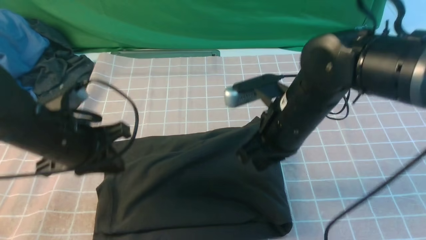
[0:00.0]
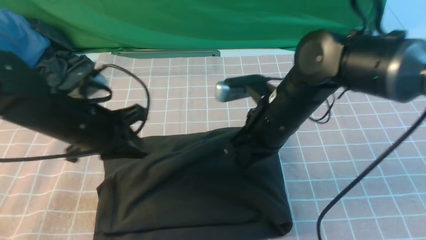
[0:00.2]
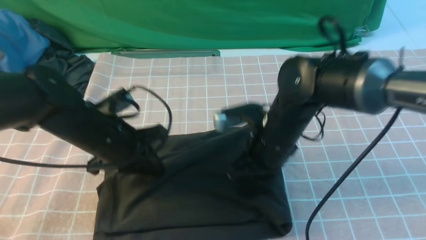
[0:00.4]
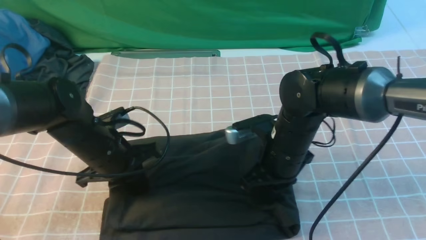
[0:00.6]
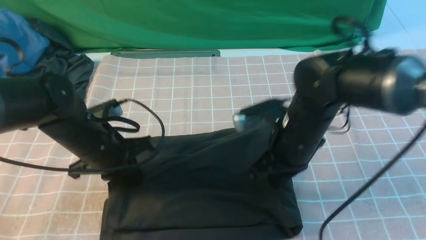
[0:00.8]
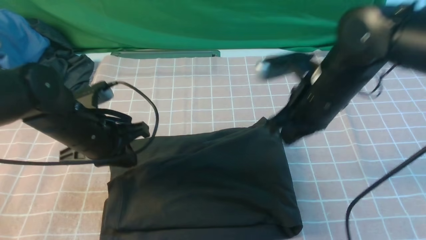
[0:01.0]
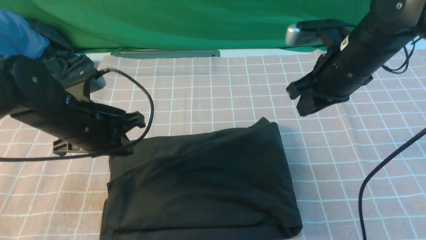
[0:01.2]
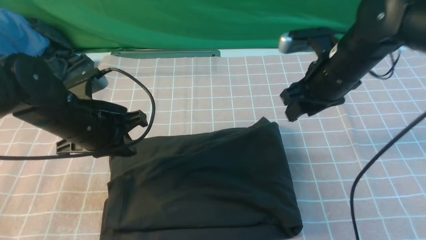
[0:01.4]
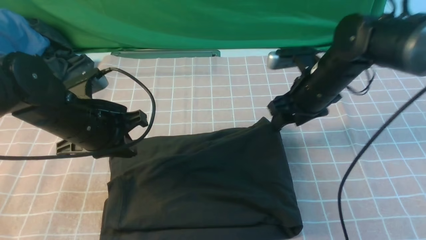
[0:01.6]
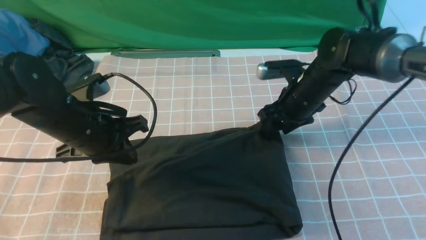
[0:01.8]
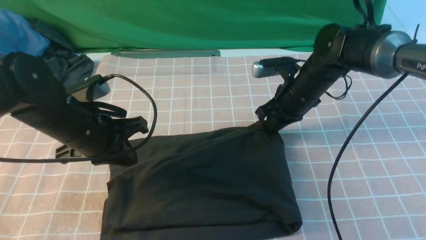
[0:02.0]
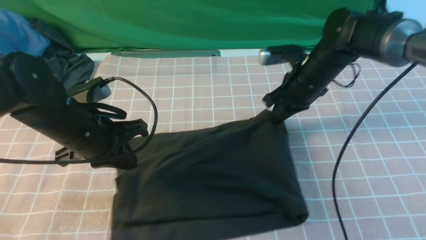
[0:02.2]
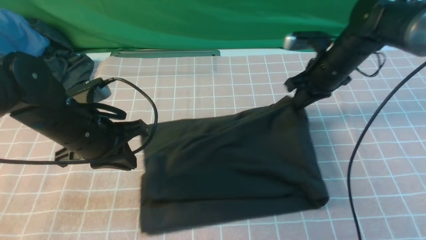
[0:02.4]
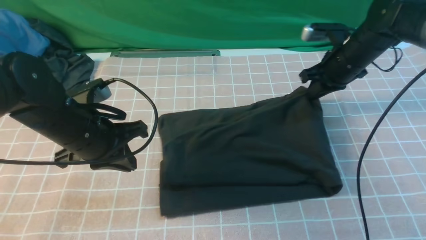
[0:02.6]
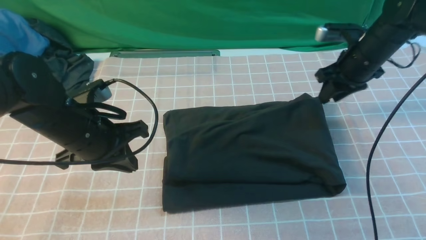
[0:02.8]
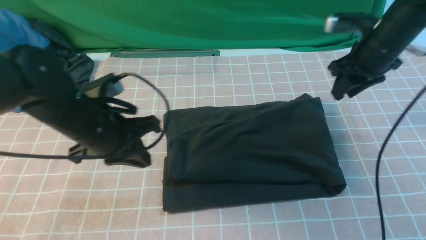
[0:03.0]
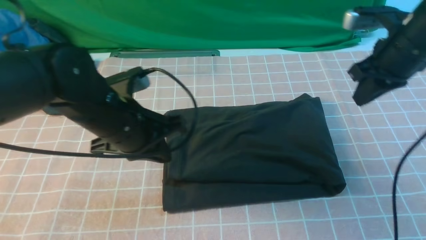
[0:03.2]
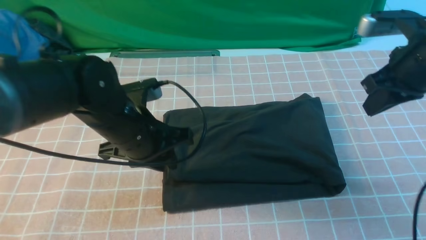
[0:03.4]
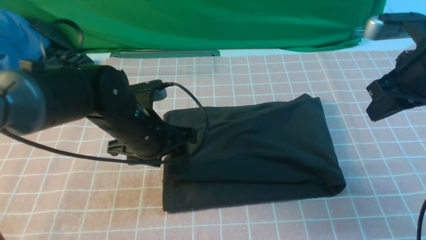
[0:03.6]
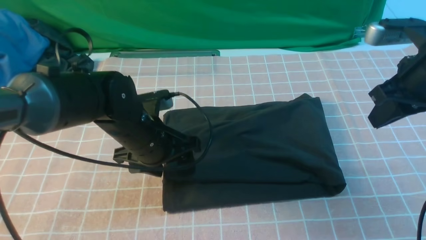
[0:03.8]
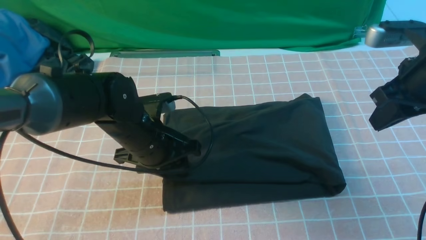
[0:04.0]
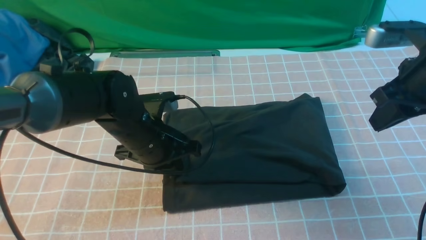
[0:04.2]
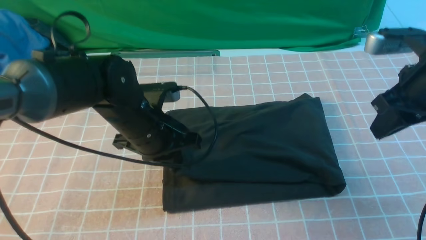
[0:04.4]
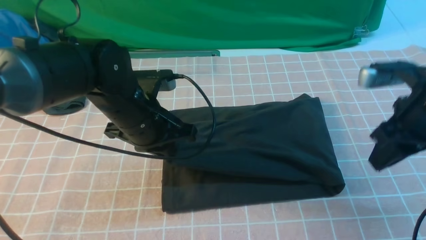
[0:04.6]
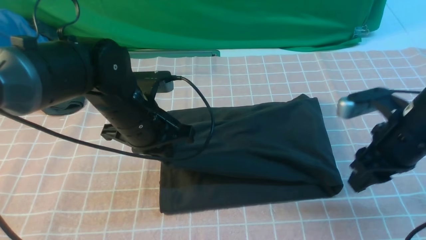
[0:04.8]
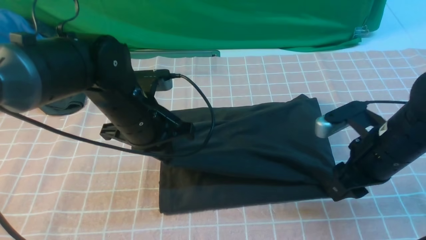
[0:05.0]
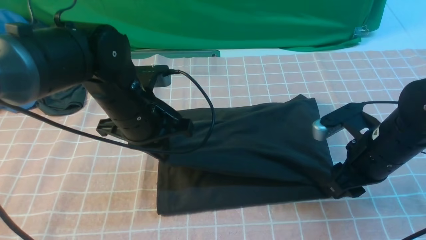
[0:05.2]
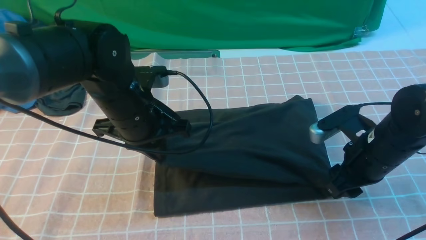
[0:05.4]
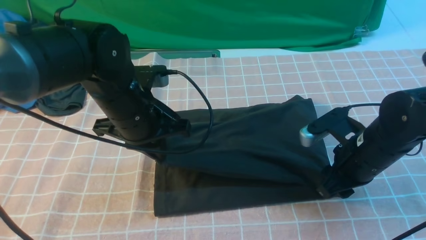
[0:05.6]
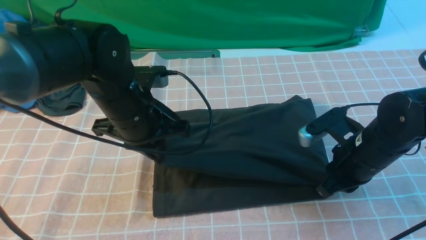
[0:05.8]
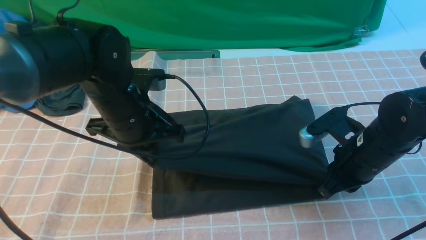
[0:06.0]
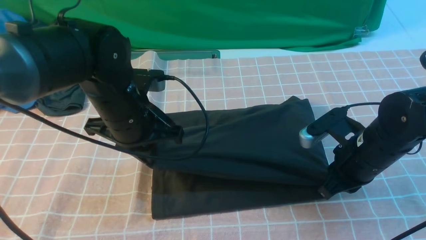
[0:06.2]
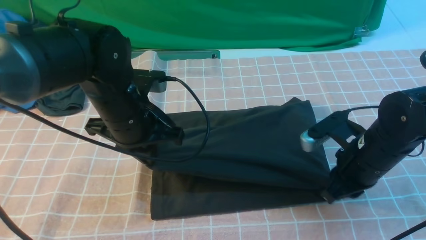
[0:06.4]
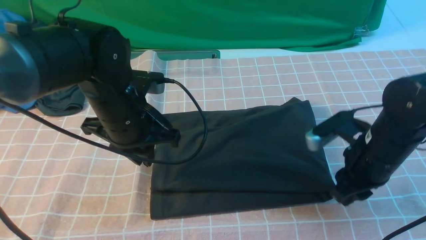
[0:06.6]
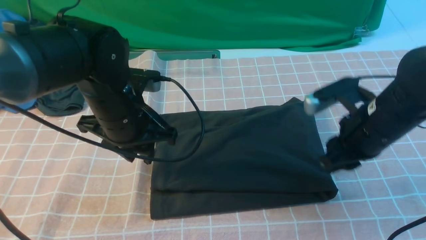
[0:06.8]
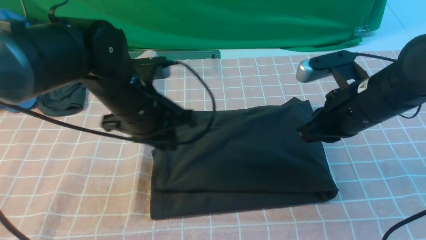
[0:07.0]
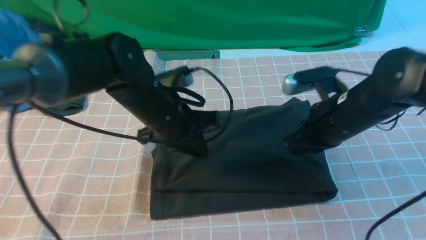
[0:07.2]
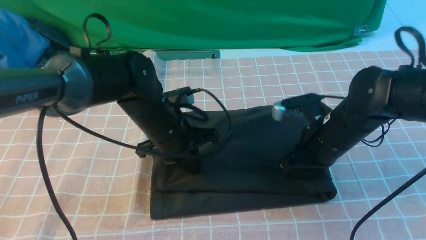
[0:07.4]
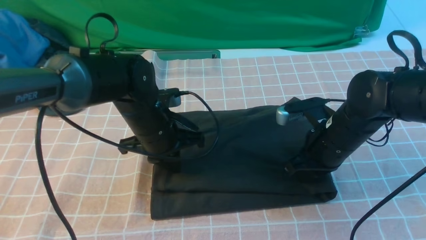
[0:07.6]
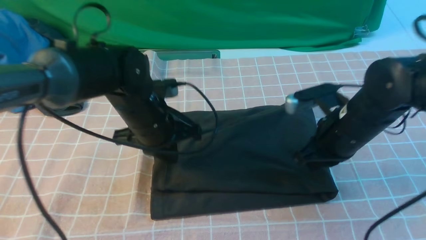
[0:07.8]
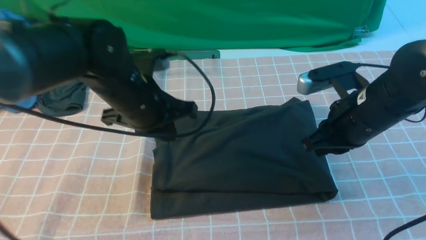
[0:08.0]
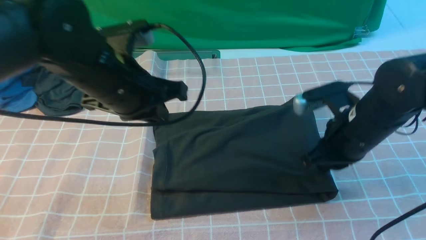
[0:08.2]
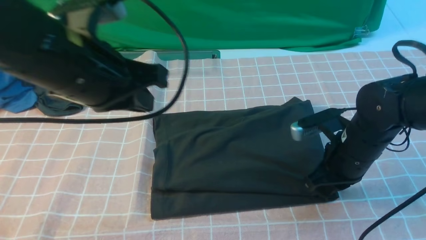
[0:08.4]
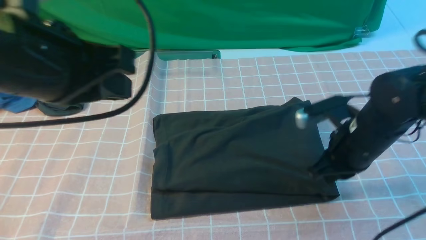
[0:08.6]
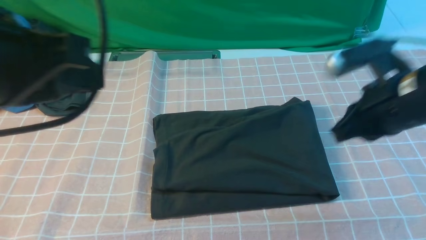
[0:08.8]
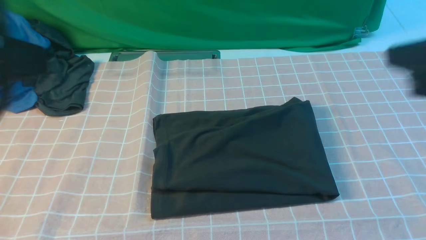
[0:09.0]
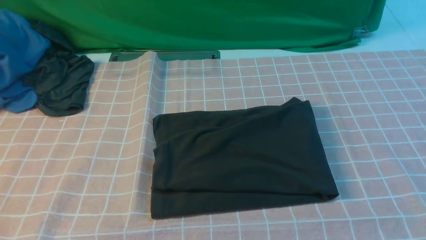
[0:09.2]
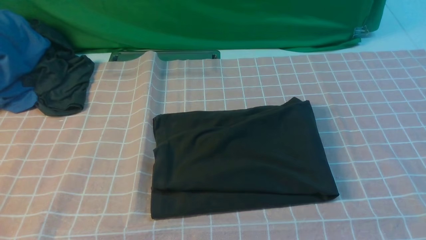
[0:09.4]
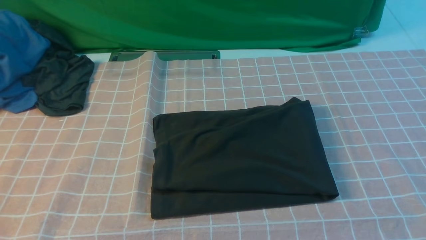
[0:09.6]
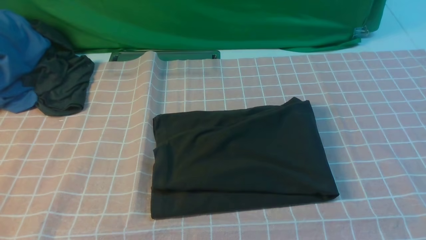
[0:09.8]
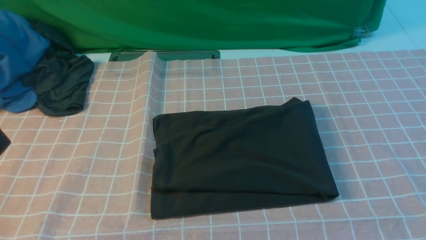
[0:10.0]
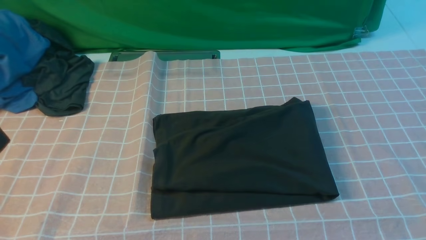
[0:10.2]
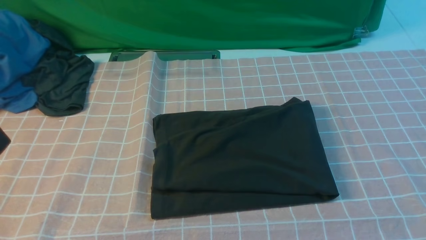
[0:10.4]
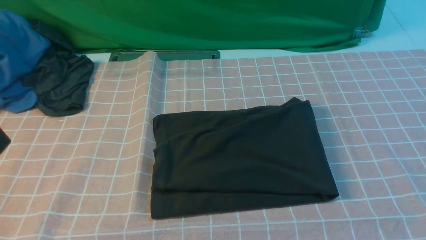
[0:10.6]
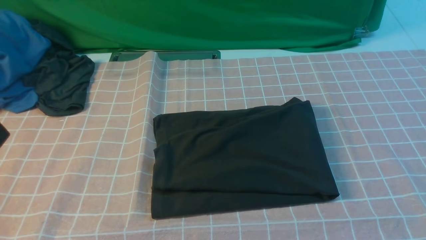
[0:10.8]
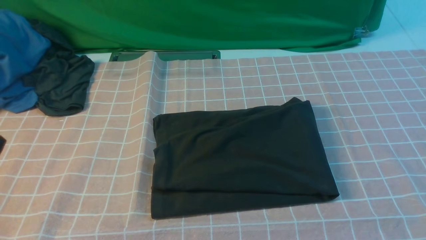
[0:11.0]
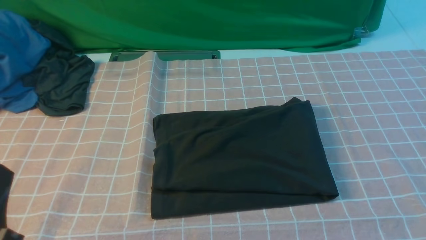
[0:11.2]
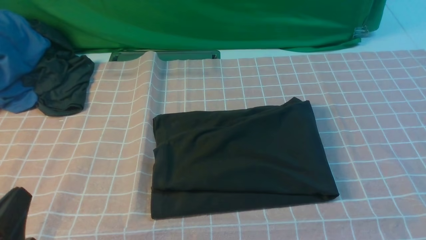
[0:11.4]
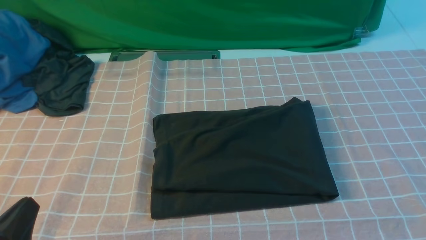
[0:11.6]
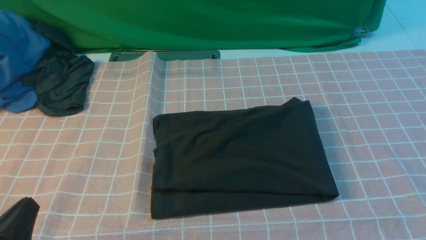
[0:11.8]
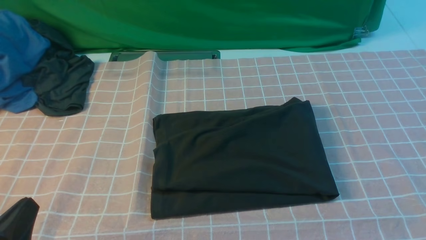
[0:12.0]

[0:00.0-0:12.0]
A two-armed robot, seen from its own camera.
0:00.0 to 0:01.6: The right gripper is displaced forward and to the right by approximately 15 cm, and opens.
0:01.6 to 0:03.0: The right gripper goes some 10 cm to the right and upward, and closes up.
0:03.0 to 0:04.4: The left gripper changes place by approximately 5 cm, and opens, then closes once more, while the right gripper moves backward, roughly 10 cm.
0:04.4 to 0:06.0: The right gripper heads downward and to the left, covering roughly 15 cm, and opens, then closes once more.
0:06.0 to 0:07.6: The left gripper is displaced downward by roughly 5 cm, and opens, then closes once more. Meanwhile the right gripper opens, then closes once more.
0:07.6 to 0:09.0: The right gripper shifts about 25 cm upward and backward. The left gripper goes some 35 cm upward, backward and to the left.
0:09.0 to 0:10.4: The left gripper shifts some 10 cm downward and backward; the right gripper goes approximately 15 cm backward and to the right, and opens.
0:10.4 to 0:12.0: The left gripper is displaced downward by some 15 cm.

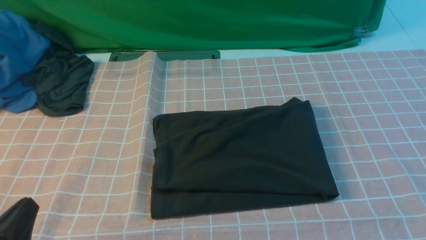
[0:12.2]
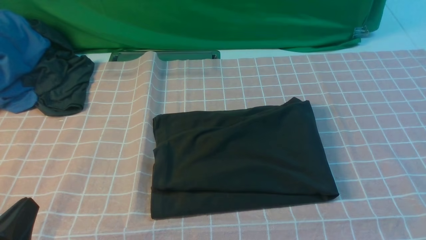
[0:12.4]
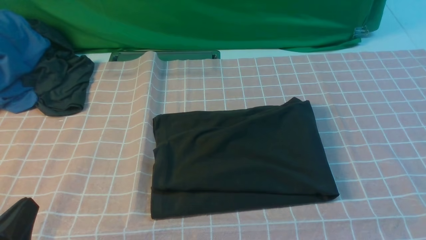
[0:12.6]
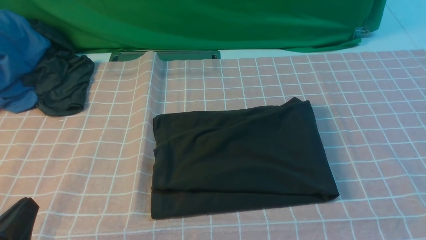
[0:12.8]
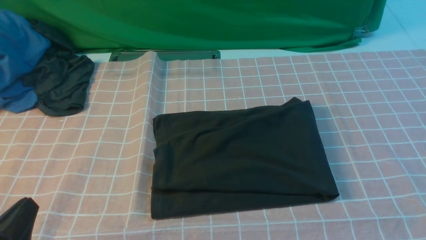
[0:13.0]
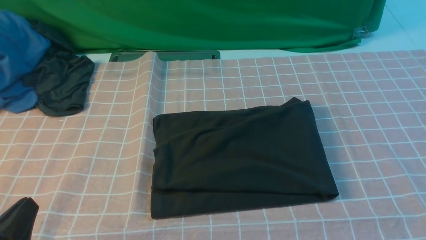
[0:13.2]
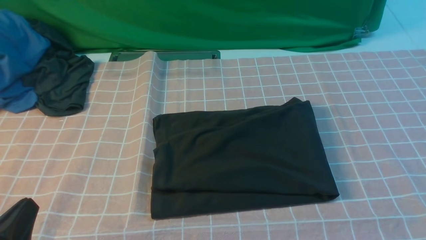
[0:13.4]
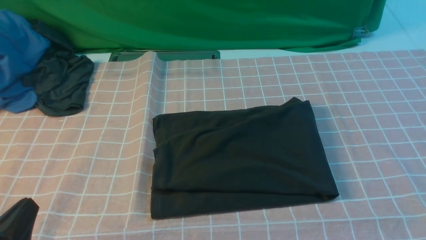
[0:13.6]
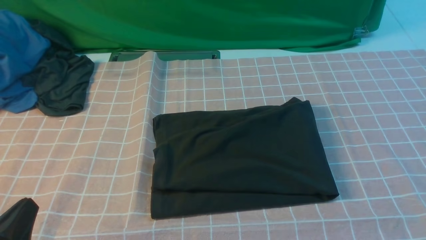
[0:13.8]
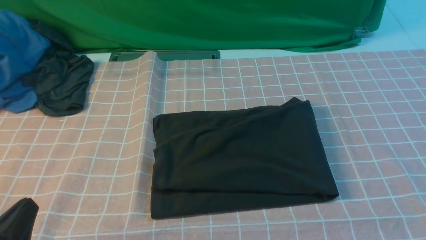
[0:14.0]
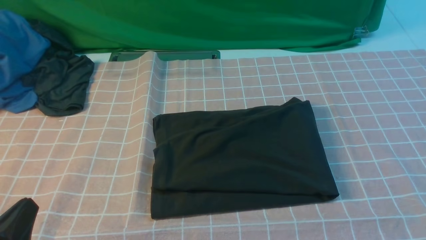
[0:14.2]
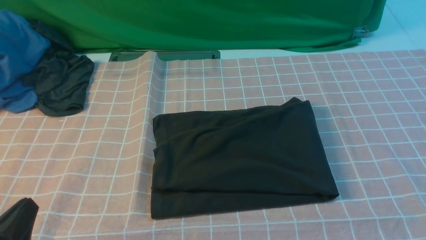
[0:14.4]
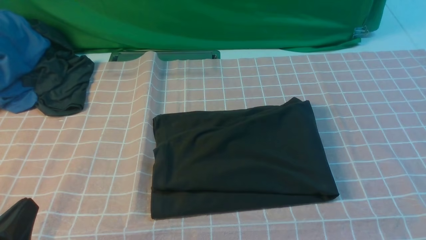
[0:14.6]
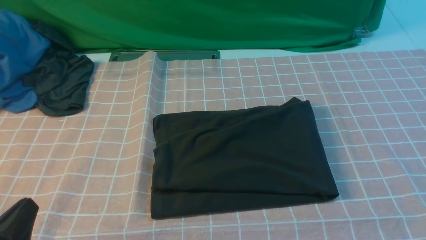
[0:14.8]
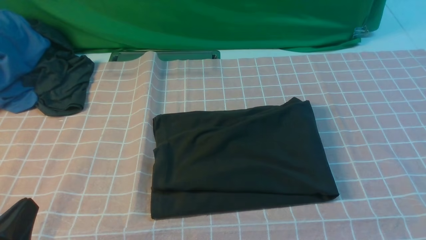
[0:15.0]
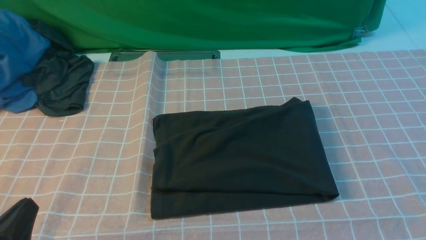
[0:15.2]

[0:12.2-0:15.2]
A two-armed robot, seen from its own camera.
0:13.8 to 0:15.2: Neither gripper changes place.

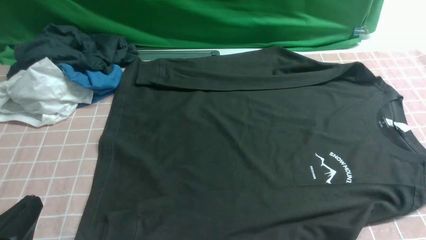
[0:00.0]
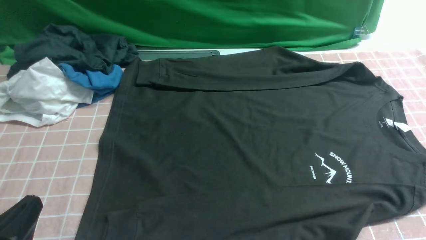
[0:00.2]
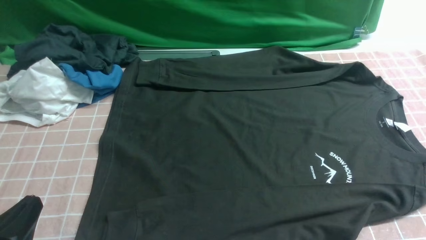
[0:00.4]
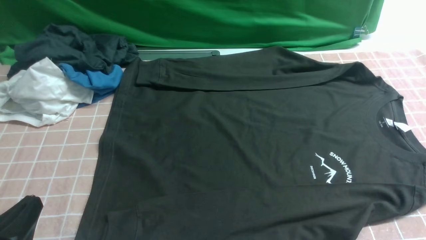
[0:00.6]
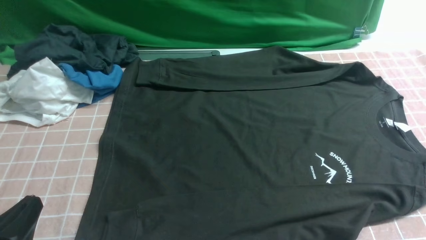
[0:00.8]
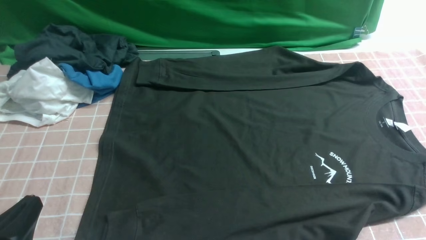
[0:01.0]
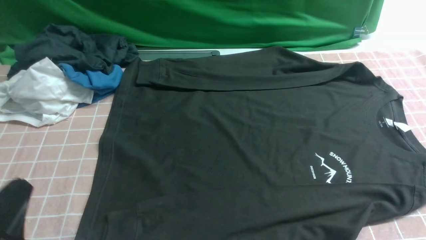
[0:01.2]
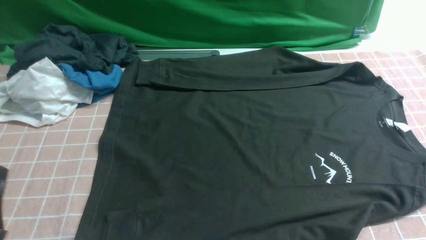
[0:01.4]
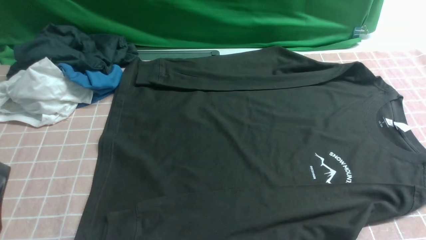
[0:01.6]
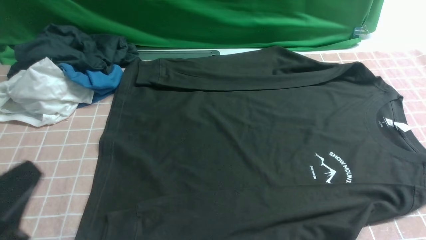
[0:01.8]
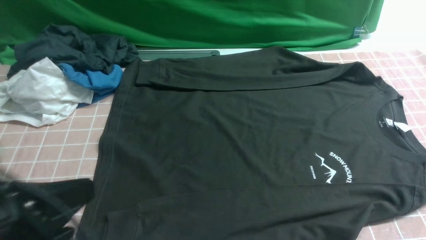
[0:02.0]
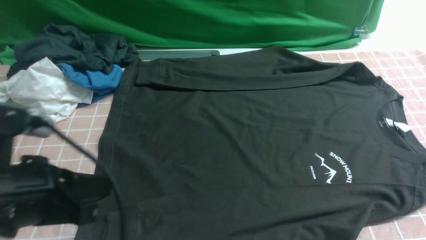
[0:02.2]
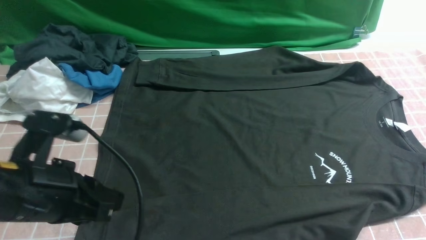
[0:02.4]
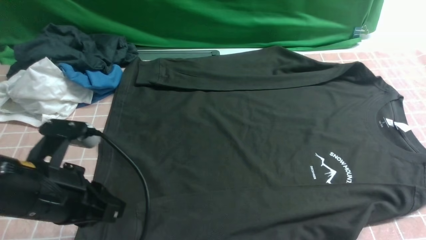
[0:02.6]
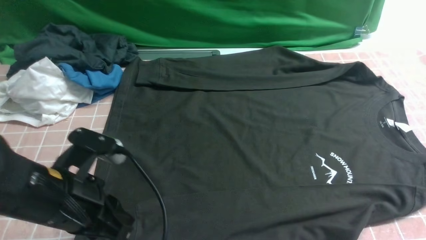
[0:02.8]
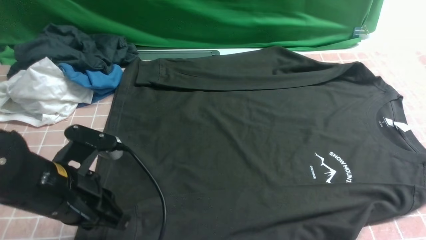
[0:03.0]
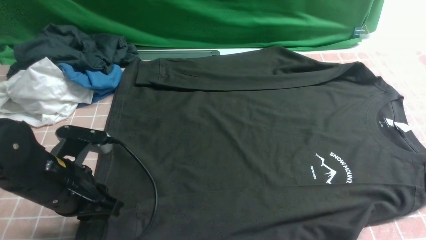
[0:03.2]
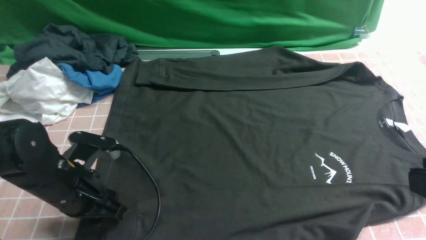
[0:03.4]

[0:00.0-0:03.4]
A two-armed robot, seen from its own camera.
0:00.0 to 0:01.6: The left gripper shifts some 5 cm upward.
0:01.6 to 0:03.4: The left gripper travels forward and downward by some 20 cm, and opens up.
